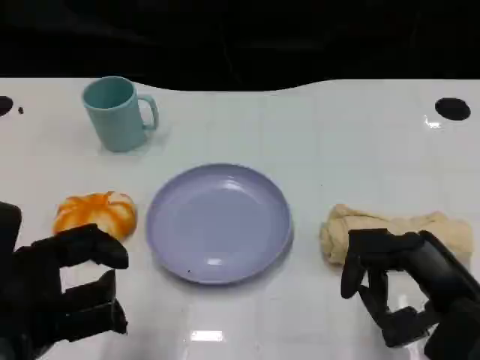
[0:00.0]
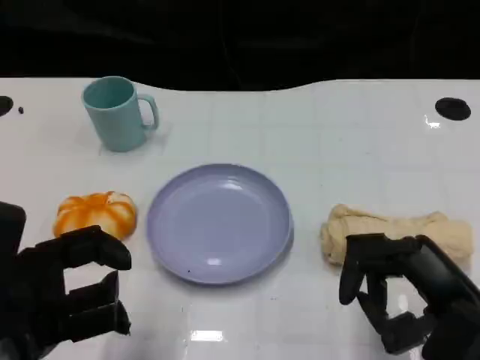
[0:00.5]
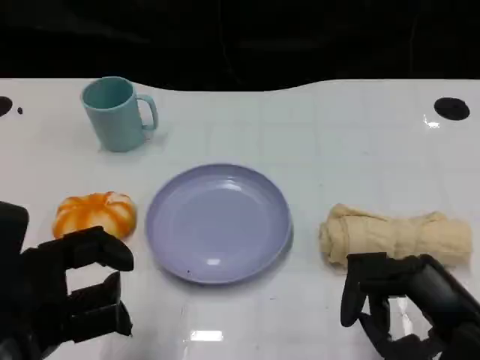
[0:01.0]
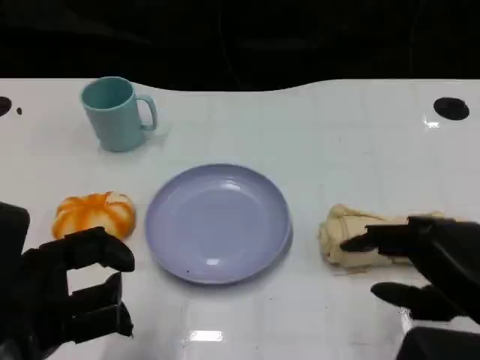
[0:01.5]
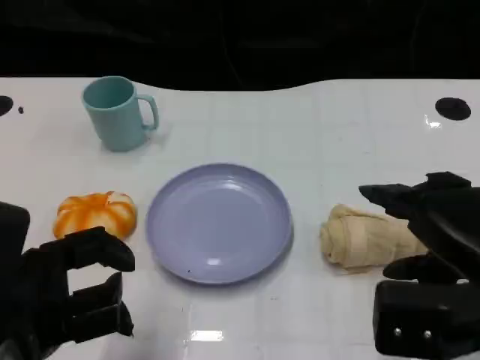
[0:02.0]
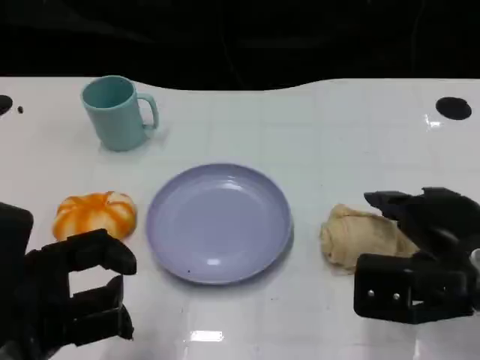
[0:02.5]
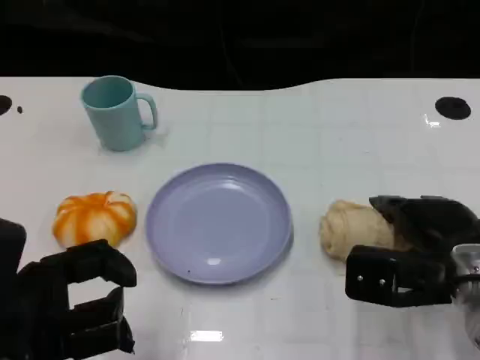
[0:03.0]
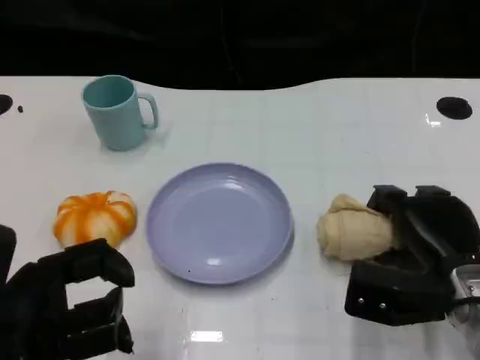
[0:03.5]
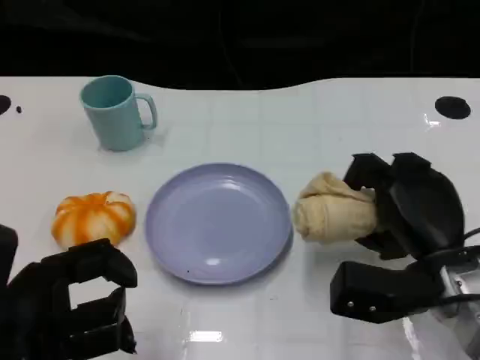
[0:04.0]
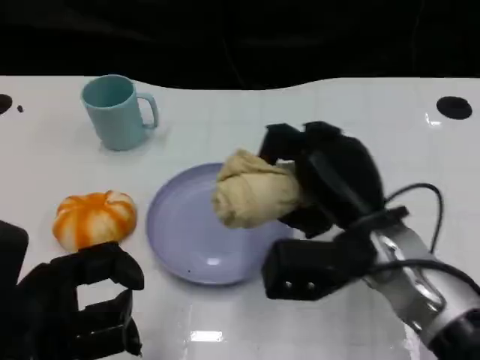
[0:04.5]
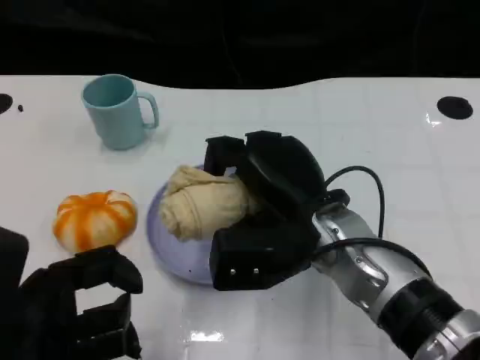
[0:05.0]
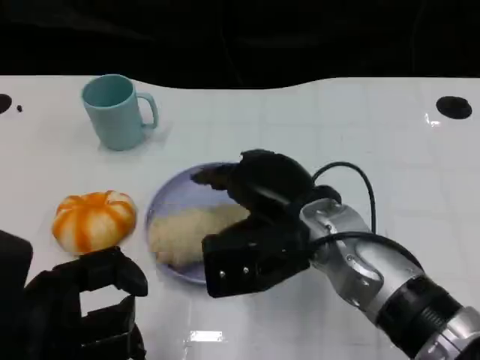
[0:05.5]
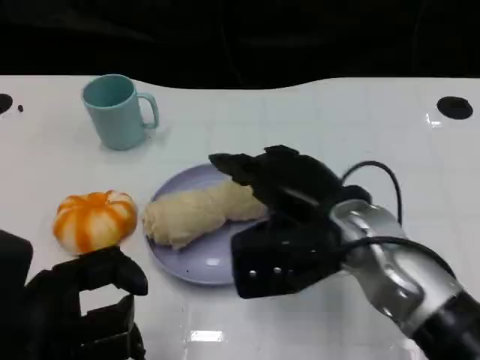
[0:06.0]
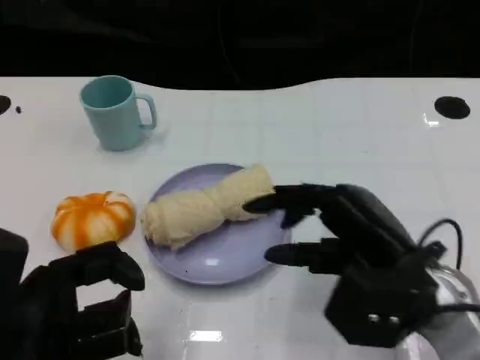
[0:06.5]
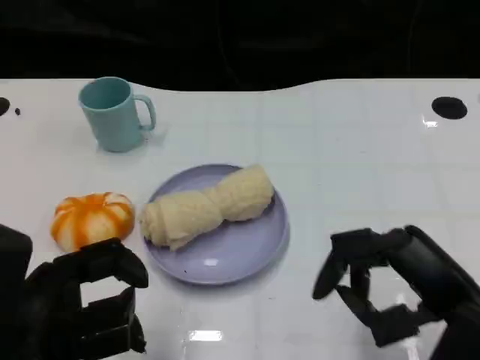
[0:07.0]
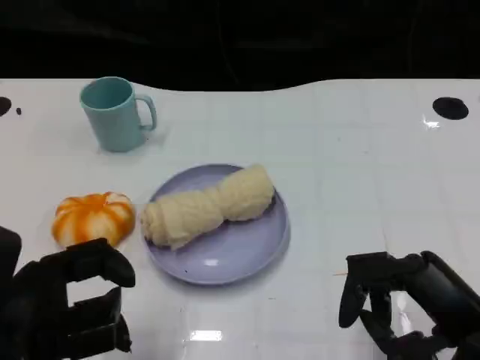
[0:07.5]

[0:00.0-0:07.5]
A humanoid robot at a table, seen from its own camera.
Task of the whole recording: Grasp the towel on the left side of the plate with the left hand and place it into the plate.
0:00.0 to 0:02.0: The right hand heads upward, covering roughly 5 cm.
0:02.0 to 0:04.0: The right hand heads downward and forward, covering roughly 10 cm.
0:04.0 to 0:05.5: The right hand is displaced to the left and upward by some 15 cm.
0:05.5 to 0:07.5: The right hand goes roughly 20 cm to the right and backward.
